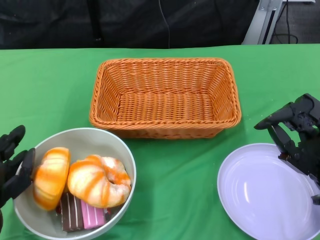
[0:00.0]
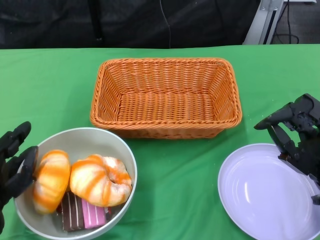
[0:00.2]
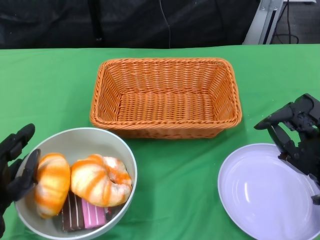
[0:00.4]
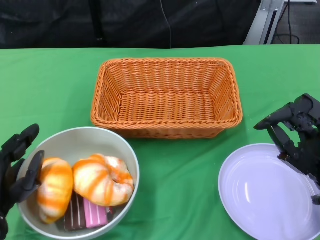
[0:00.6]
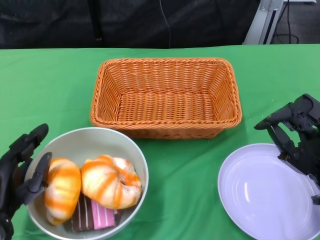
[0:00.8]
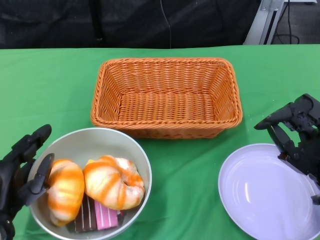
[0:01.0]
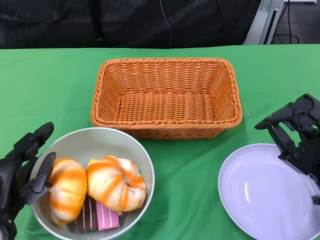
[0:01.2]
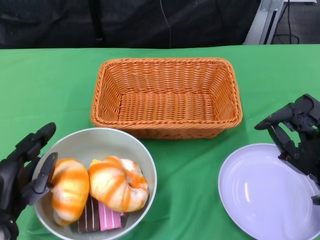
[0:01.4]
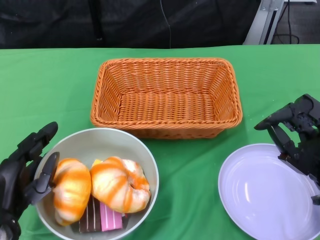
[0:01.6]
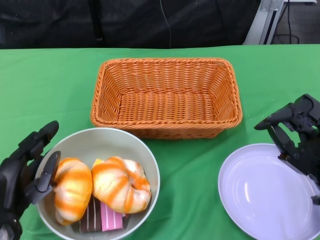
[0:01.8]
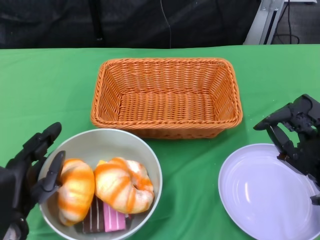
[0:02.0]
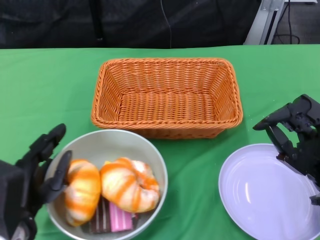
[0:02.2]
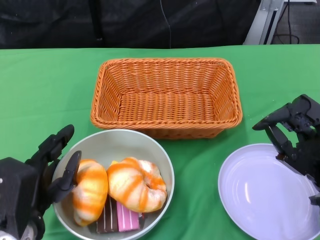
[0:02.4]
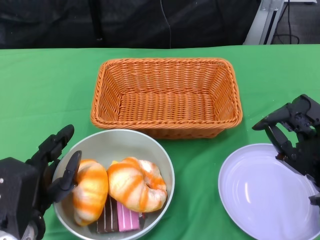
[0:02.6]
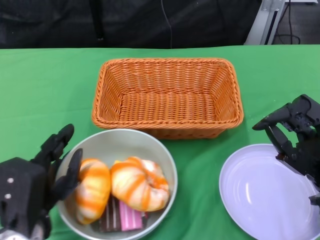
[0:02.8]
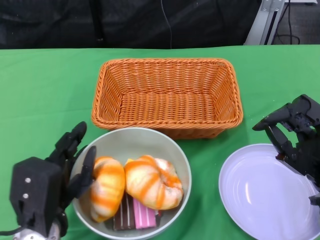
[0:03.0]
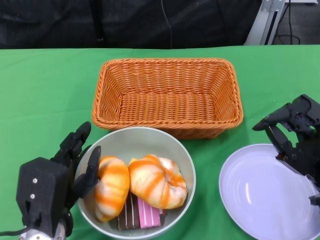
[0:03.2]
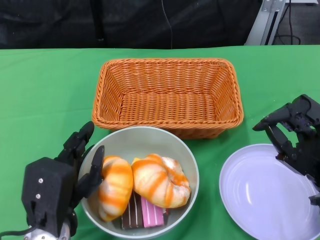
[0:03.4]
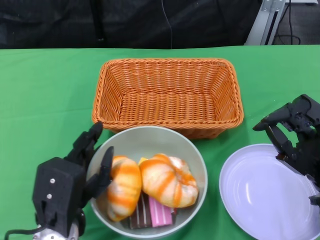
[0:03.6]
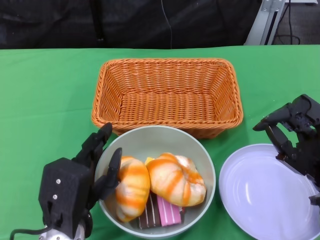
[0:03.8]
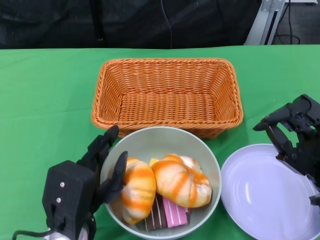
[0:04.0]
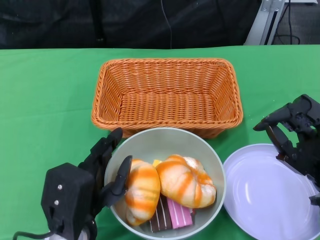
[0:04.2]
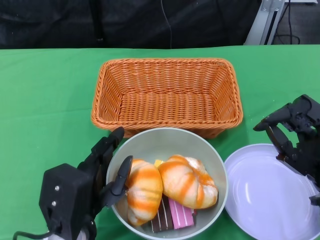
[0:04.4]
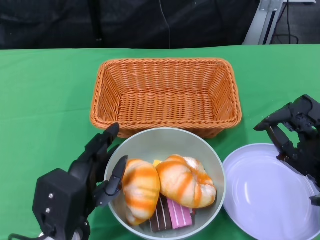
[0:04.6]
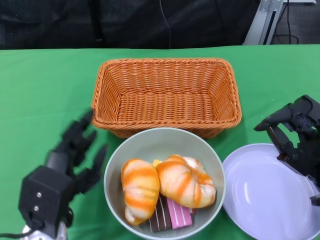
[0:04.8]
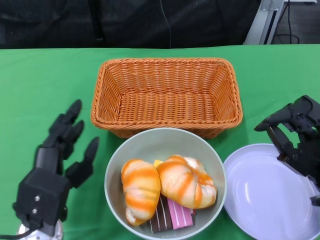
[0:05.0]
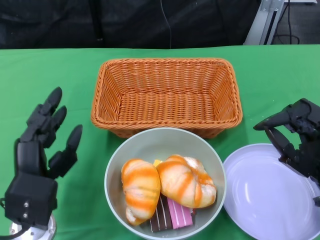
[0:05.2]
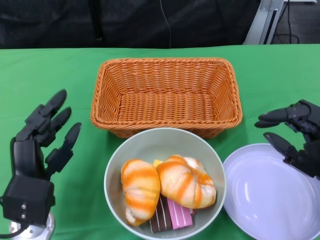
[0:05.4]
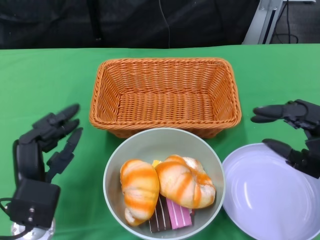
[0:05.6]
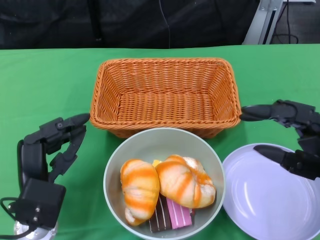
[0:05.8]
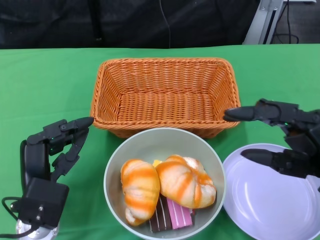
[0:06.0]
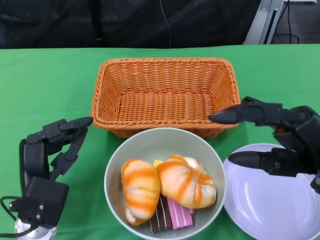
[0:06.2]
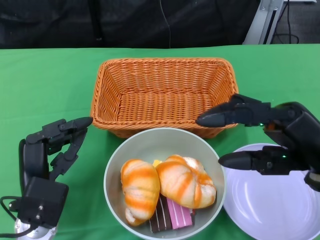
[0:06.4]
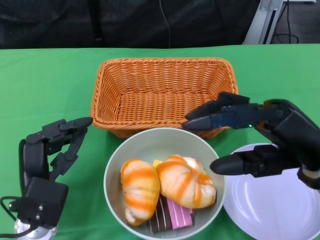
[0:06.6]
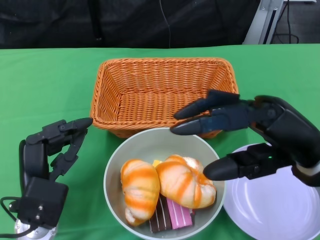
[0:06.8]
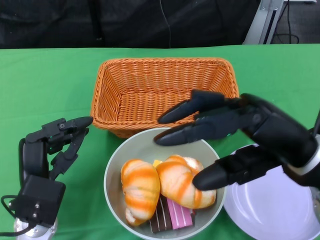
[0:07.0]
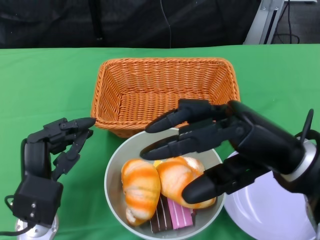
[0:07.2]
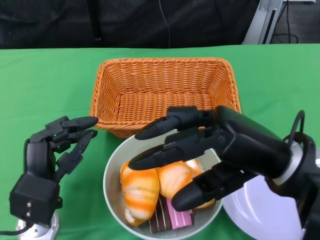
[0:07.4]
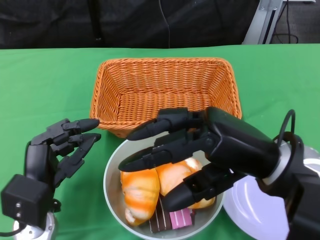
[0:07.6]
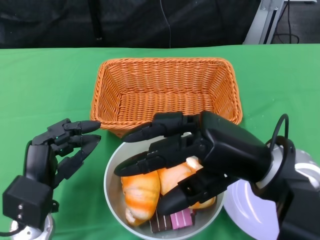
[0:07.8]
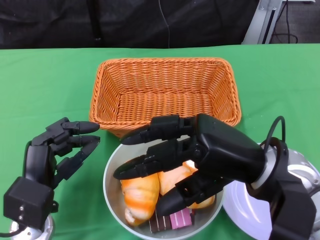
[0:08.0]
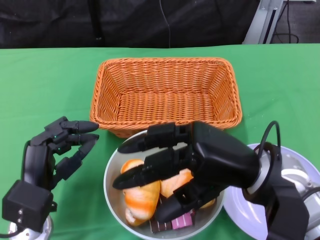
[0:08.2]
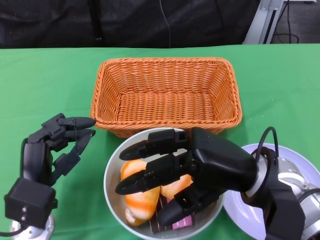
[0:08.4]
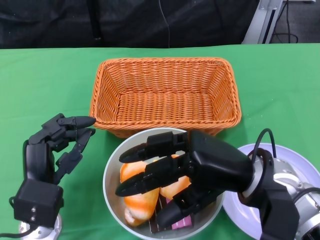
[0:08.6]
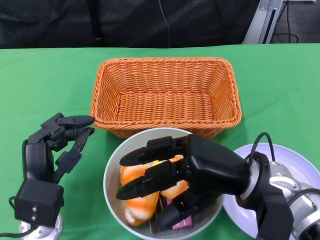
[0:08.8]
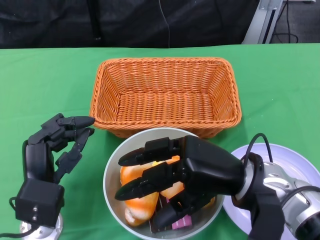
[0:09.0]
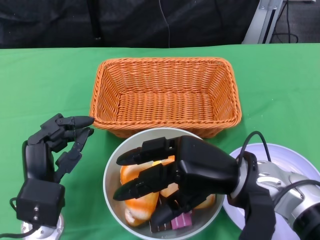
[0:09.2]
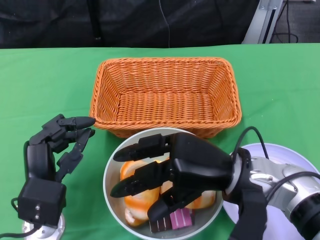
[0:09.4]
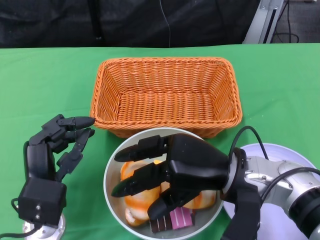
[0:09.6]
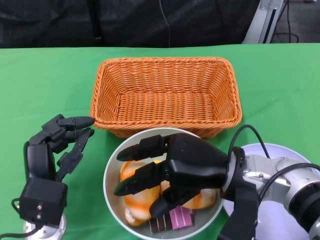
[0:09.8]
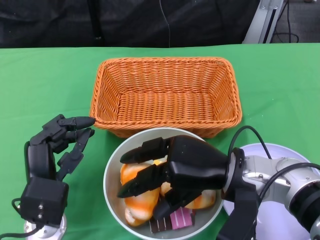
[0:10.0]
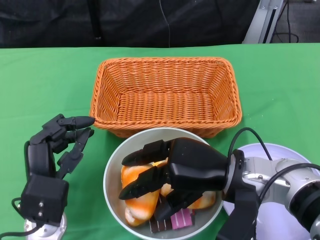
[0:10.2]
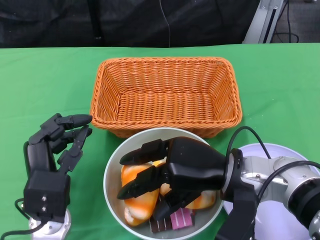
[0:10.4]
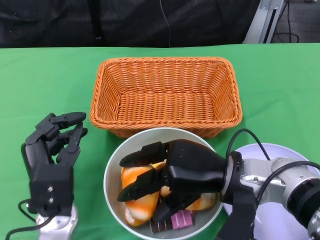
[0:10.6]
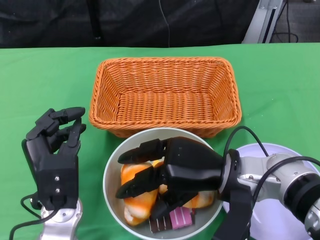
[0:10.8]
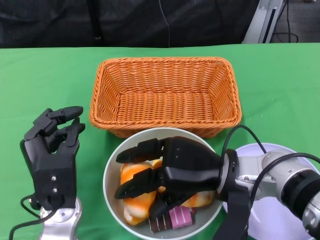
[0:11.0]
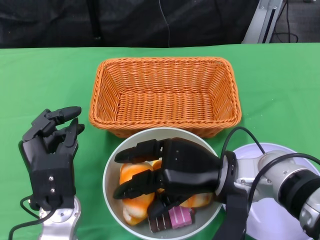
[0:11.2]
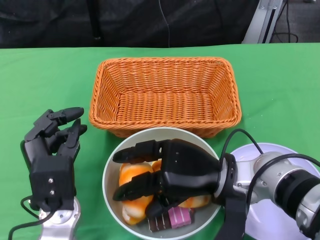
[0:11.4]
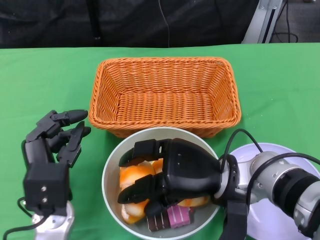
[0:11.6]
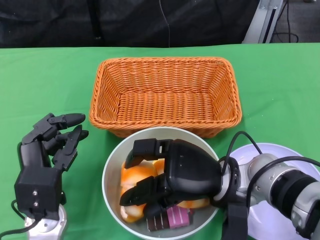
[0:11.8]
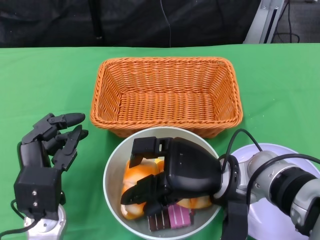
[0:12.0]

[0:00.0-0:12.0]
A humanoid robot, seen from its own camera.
Step, 0:00.0 to 0:05.0: Push the bowl to the center of the table using the left gripper.
0:00.0 to 0:01.6: There are only small adjustments of the hands.
0:01.6 to 0:03.0: The left hand is displaced to the right by approximately 5 cm.
0:04.4 to 0:06.0: The left hand shifts by about 5 cm.
0:06.0 to 0:07.6: The right hand goes some 10 cm to the left and upward.
0:07.6 to 0:09.0: The right hand heads downward, covering about 5 cm.
0:09.0 to 0:10.4: The hands make only small movements.

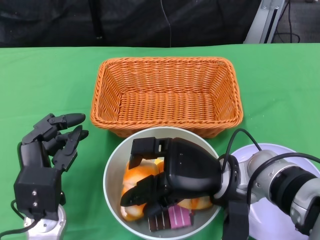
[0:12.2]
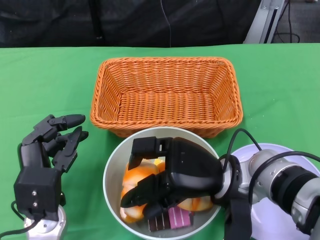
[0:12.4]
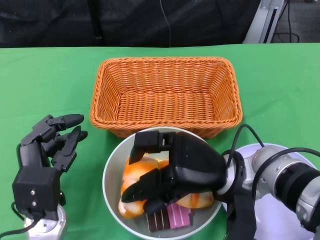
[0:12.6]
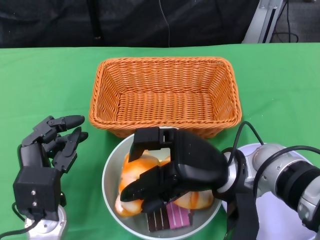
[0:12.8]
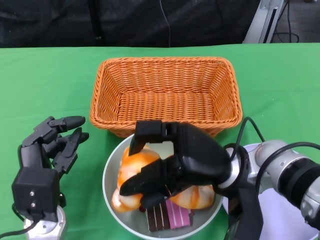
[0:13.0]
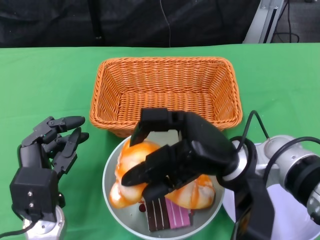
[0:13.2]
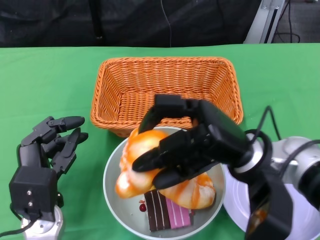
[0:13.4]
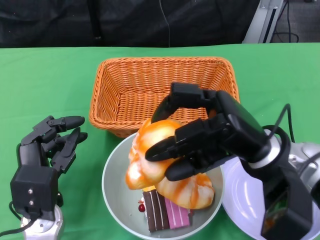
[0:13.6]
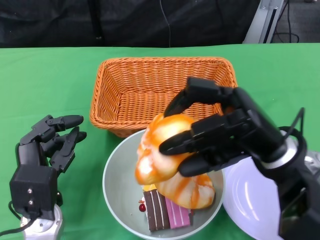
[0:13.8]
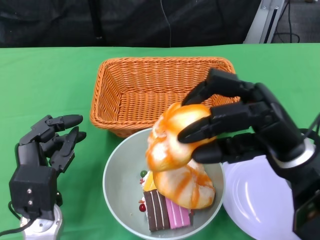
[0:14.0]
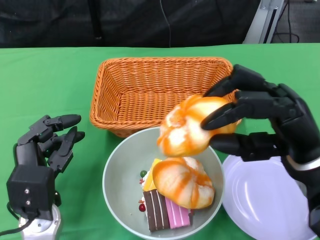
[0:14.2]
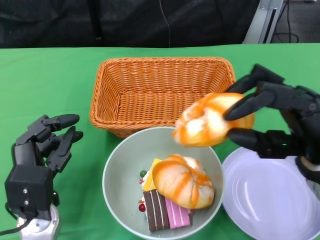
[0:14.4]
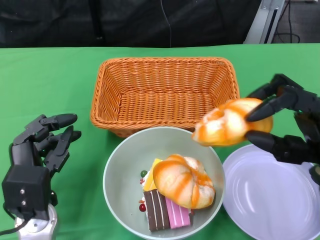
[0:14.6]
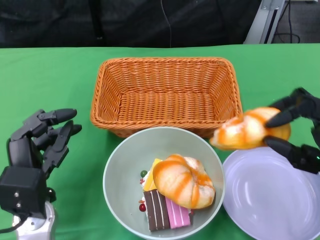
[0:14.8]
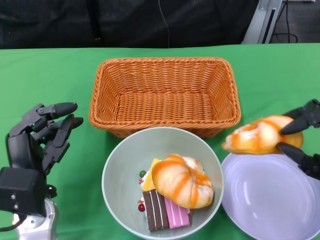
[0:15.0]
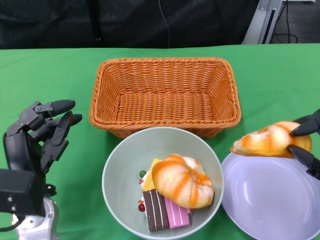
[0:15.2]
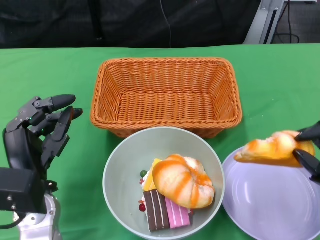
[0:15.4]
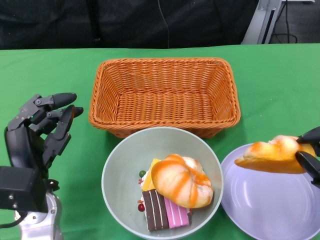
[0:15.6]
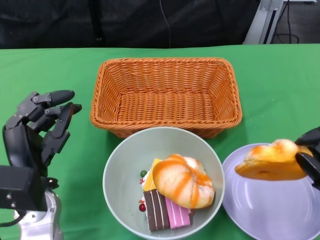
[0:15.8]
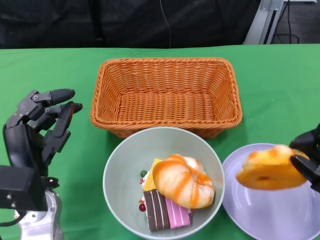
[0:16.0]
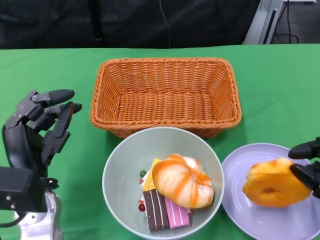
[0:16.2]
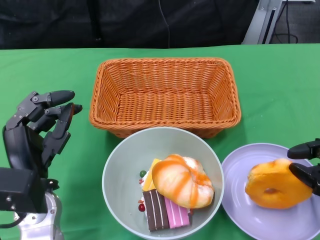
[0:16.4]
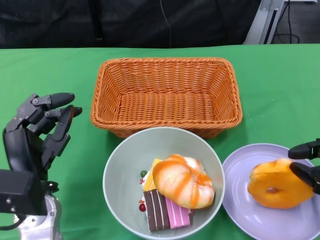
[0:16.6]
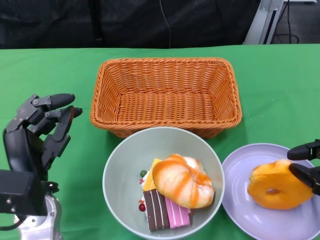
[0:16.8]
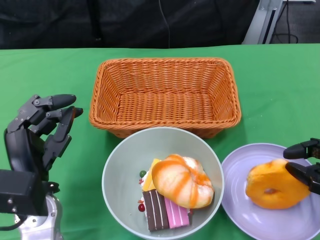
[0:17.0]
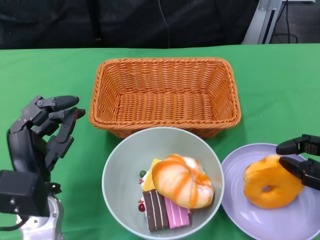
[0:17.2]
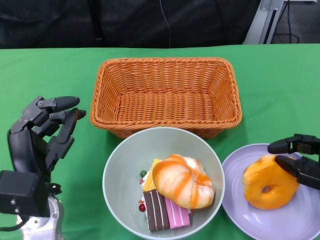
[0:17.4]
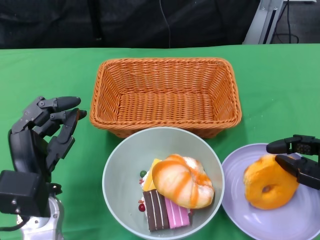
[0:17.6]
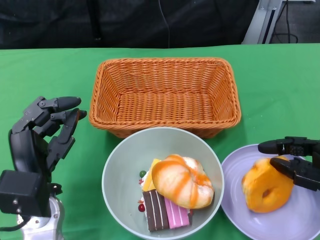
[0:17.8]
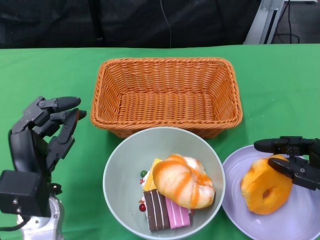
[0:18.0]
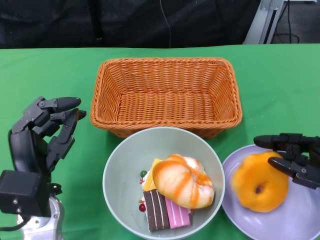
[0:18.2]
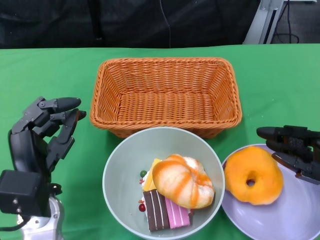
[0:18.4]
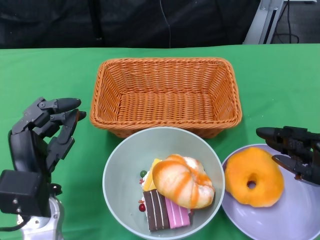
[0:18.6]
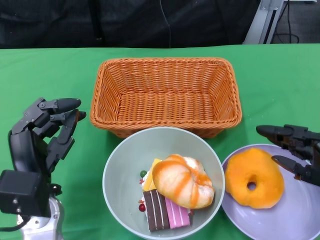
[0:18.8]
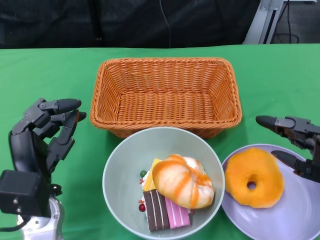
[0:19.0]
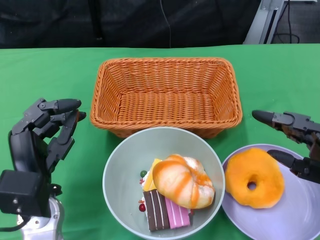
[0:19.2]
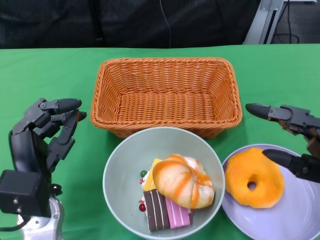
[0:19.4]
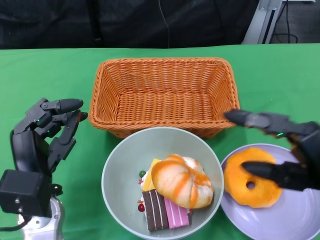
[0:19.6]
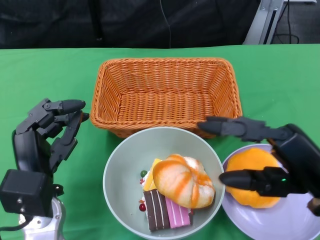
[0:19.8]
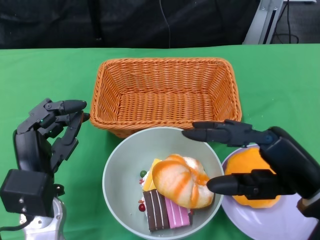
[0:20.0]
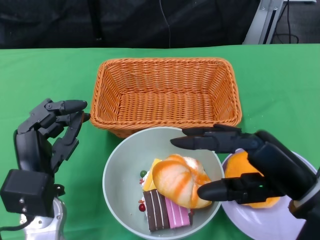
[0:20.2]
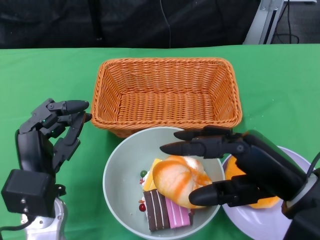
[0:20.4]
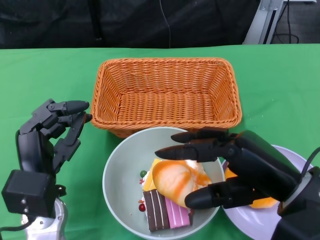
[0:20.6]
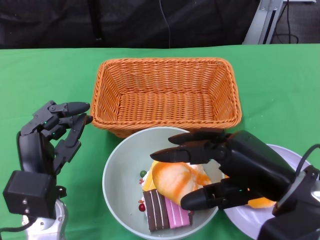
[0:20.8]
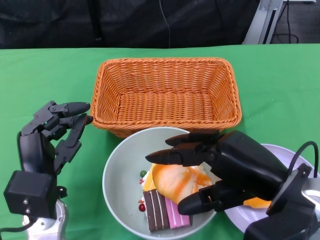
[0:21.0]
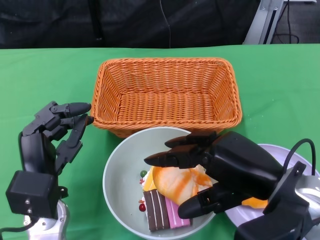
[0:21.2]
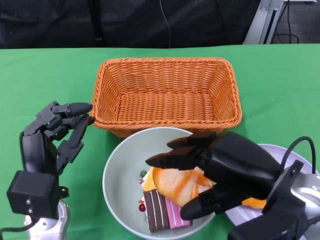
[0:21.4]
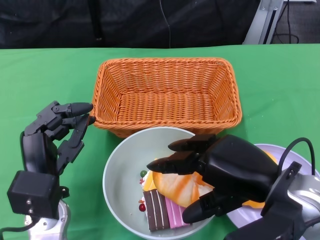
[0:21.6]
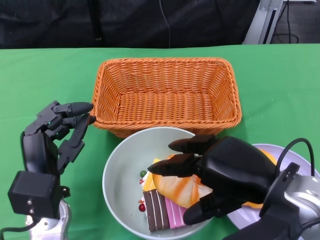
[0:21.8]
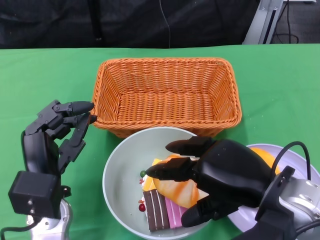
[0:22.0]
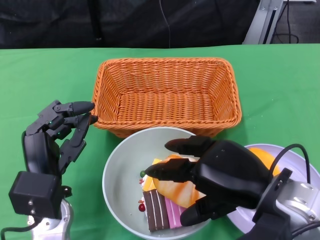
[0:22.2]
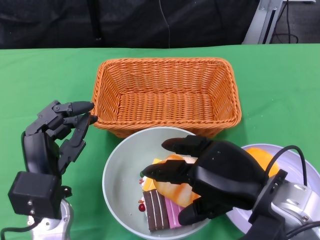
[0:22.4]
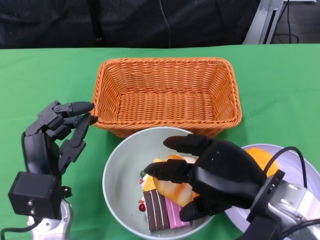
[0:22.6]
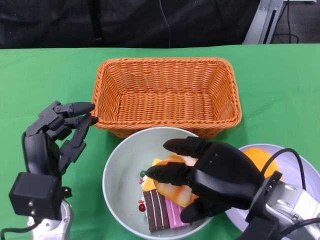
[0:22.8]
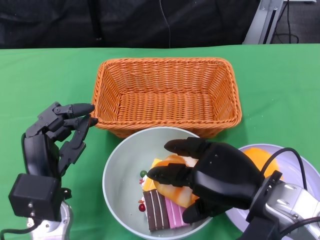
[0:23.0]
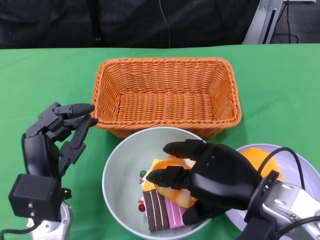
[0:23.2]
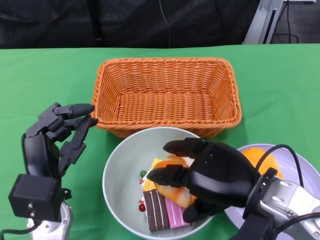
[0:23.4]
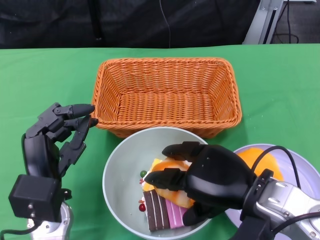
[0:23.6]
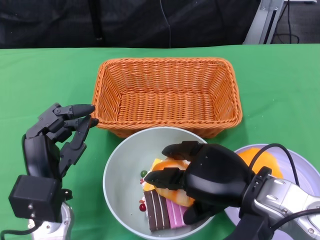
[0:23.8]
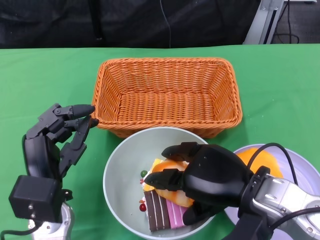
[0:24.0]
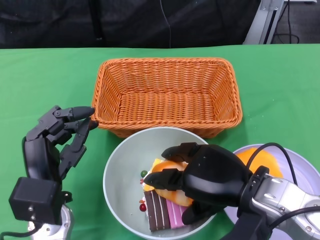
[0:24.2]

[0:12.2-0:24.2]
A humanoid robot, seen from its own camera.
0:12.2 to 0:13.8: The right hand is displaced upward and to the right by some 10 cm.
0:13.8 to 0:15.2: The right hand goes about 15 cm to the right, backward and downward.
0:18.2 to 0:19.8: The right hand is displaced to the left and upward by approximately 10 cm.
0:19.8 to 0:21.2: The right hand is displaced to the left by about 5 cm.
0:22.6 to 0:24.2: The hands make only small movements.
